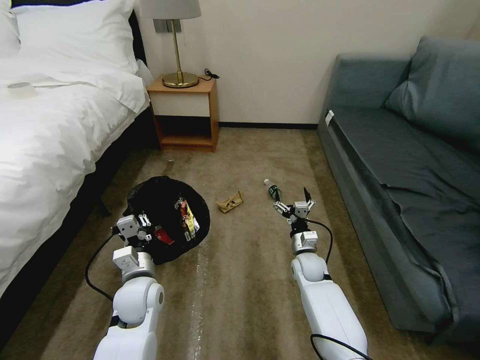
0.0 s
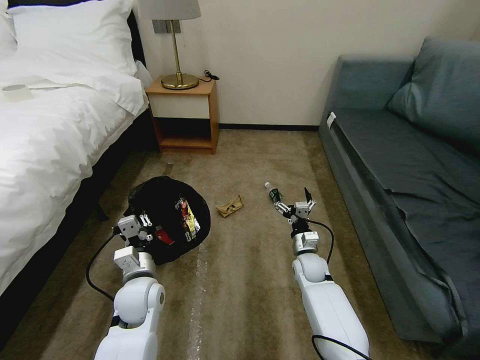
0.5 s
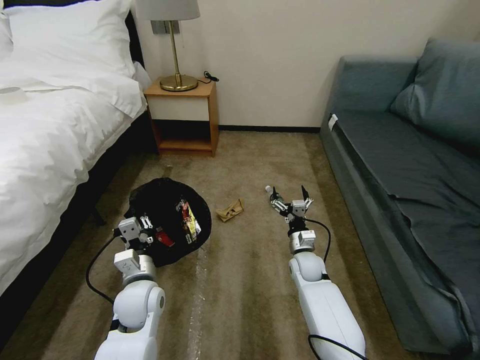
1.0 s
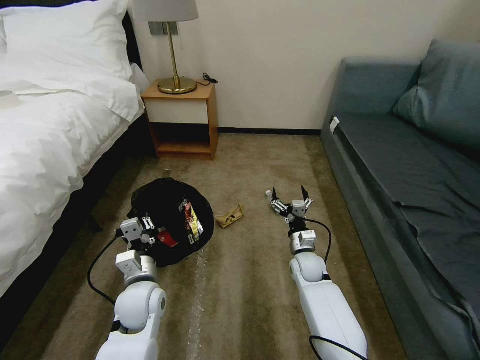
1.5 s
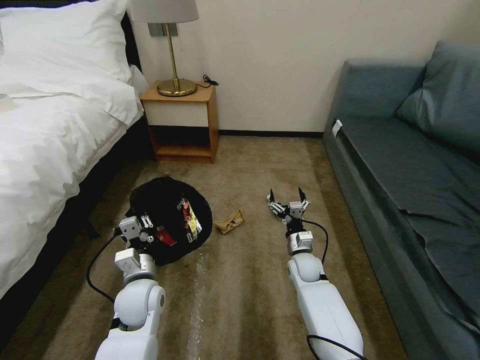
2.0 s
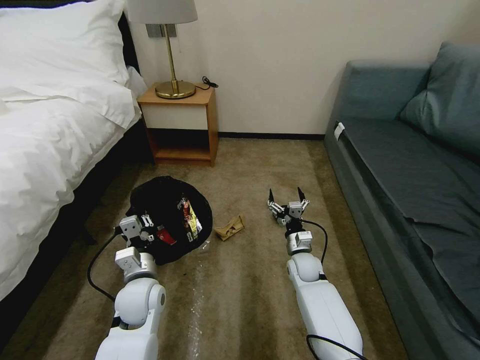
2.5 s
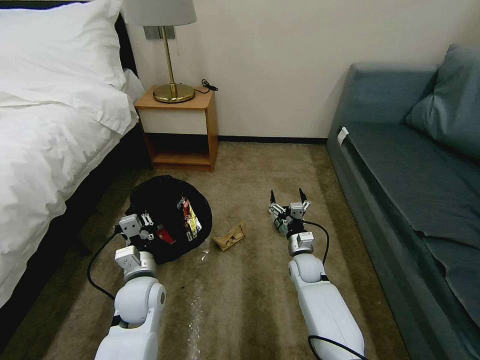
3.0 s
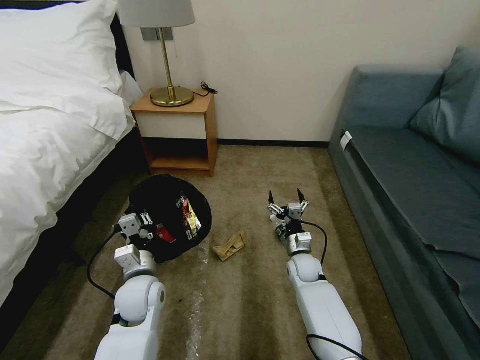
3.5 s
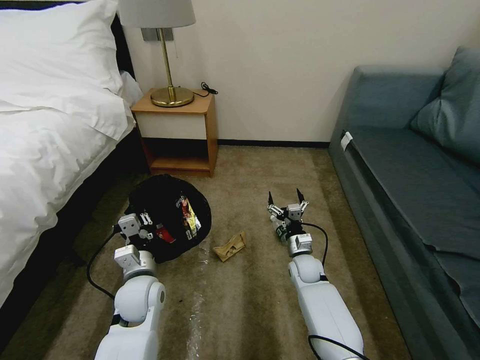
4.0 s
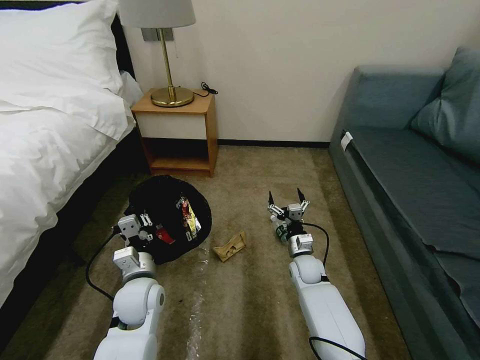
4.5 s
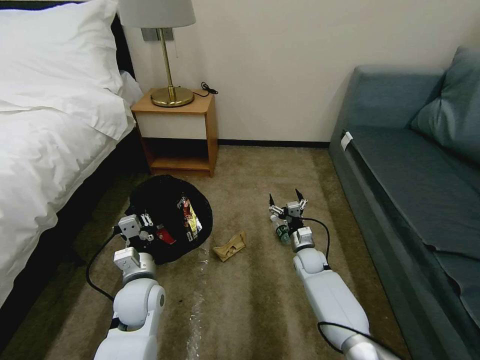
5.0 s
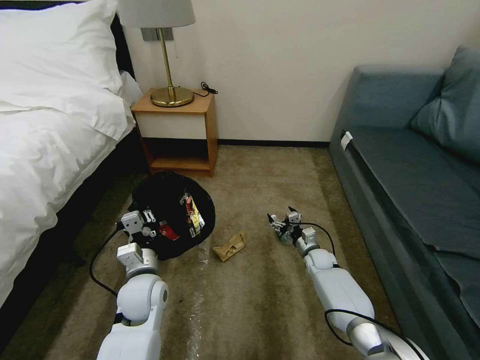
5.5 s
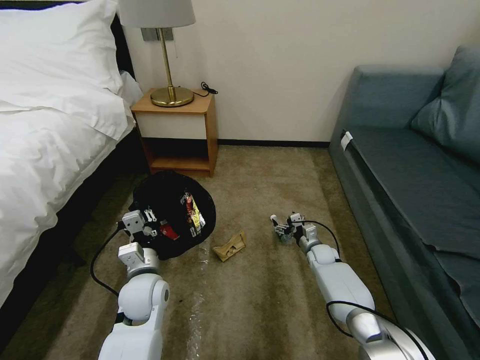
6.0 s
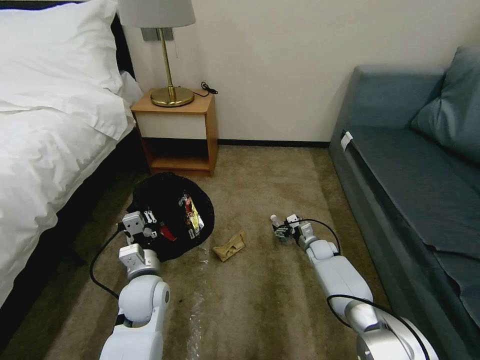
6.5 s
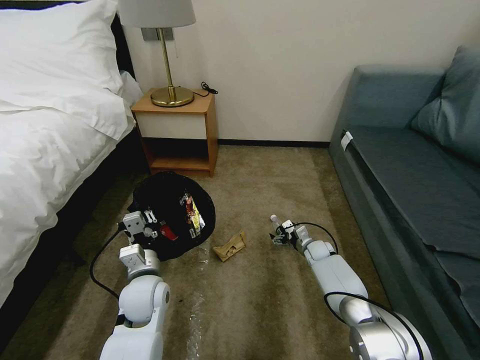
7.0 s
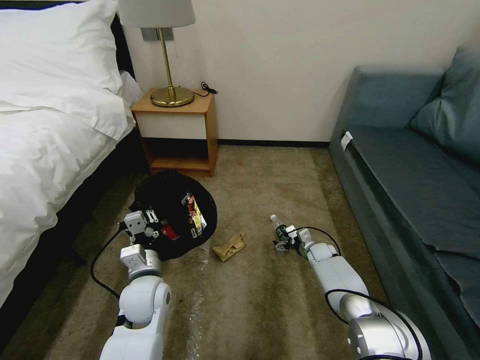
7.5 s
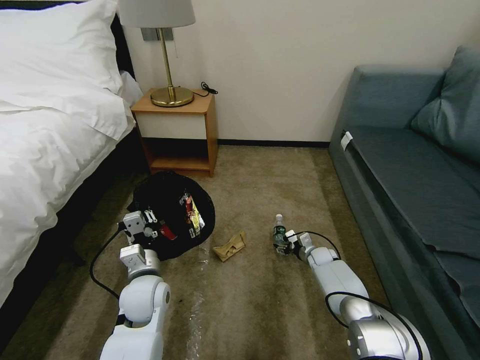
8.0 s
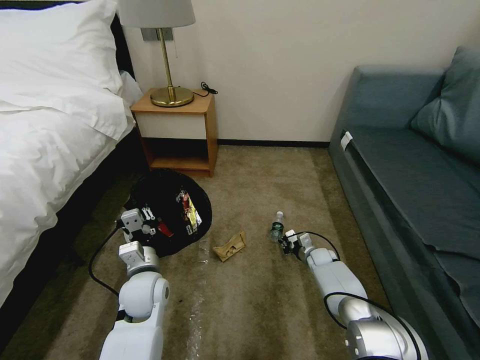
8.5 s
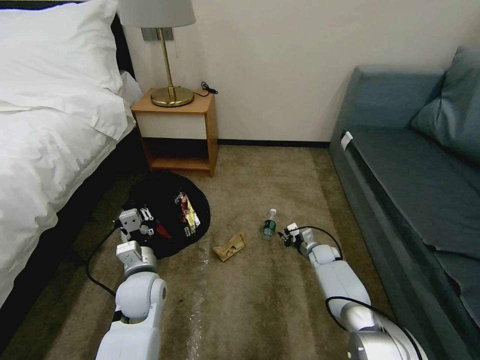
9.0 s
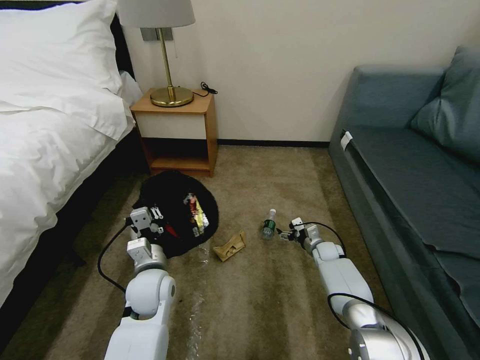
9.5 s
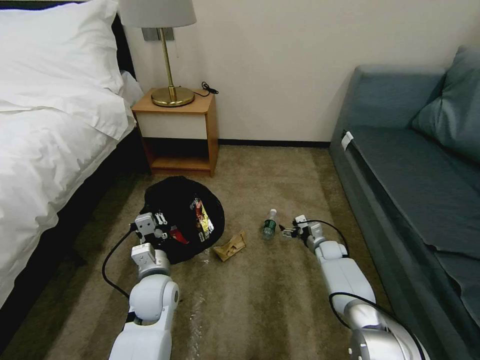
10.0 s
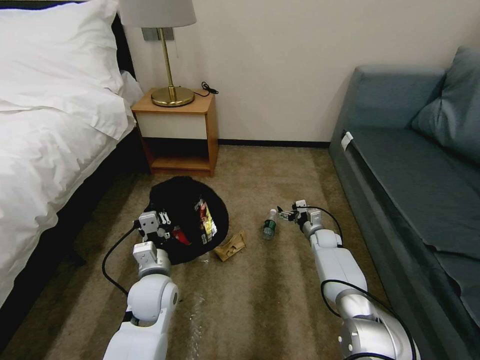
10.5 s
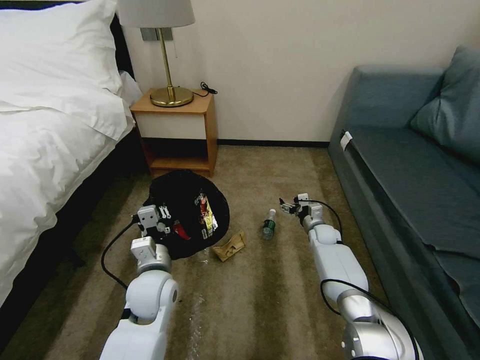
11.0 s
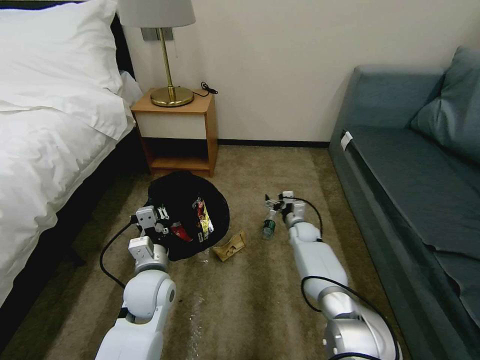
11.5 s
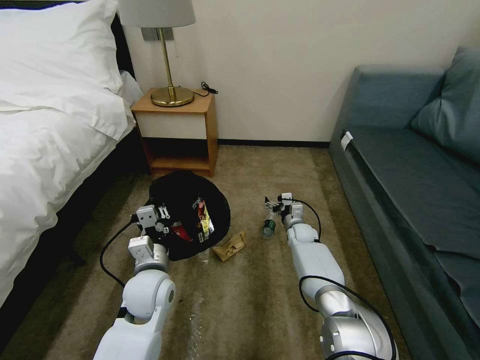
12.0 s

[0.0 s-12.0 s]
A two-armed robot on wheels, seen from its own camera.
Task of the whole recording: Pick up the trash bin, then pick up the garbage on the floor and place it into the trash bin.
0.0 to 2.0 s: The grippers stay close to where they were, moving slightly.
2.0 to 4.0 s: Both grippers stay about where they are.
4.0 to 6.0 s: The right gripper moves to the right and forward, some 10 cm.
8.0 to 10.0 s: The right gripper closes and opens again.
10.0 to 12.0 s: The right gripper goes about 10 cm to the left.

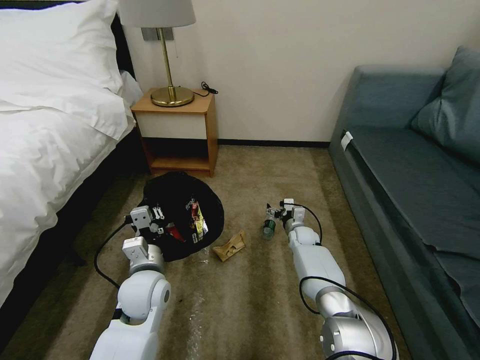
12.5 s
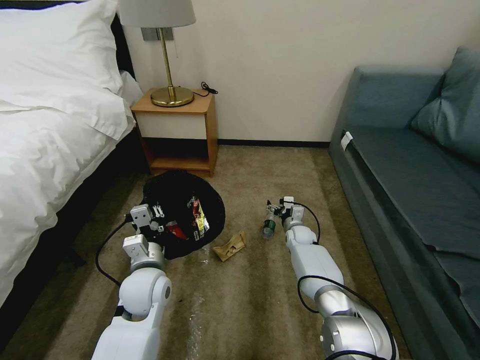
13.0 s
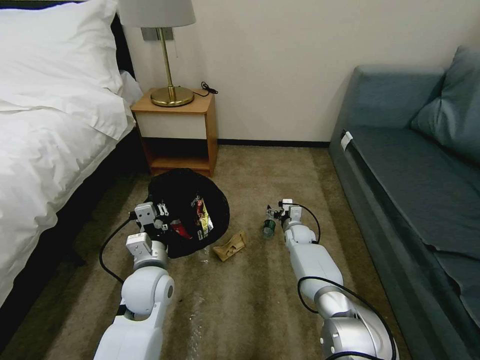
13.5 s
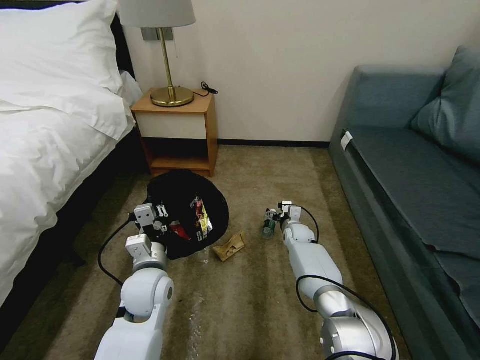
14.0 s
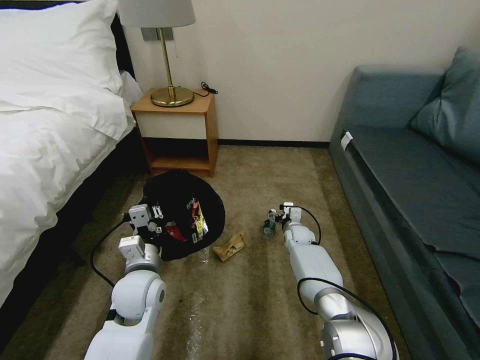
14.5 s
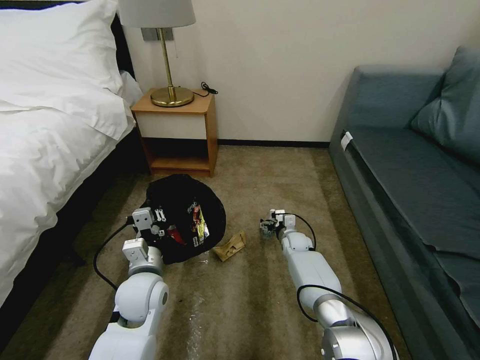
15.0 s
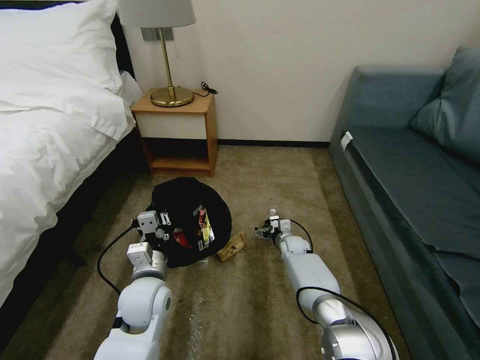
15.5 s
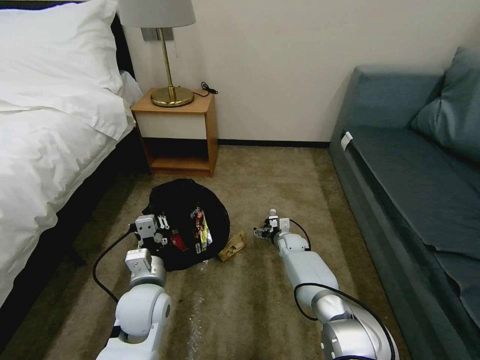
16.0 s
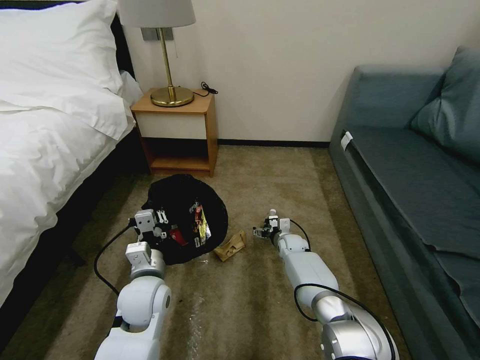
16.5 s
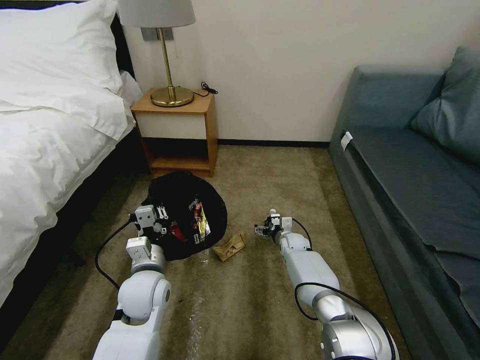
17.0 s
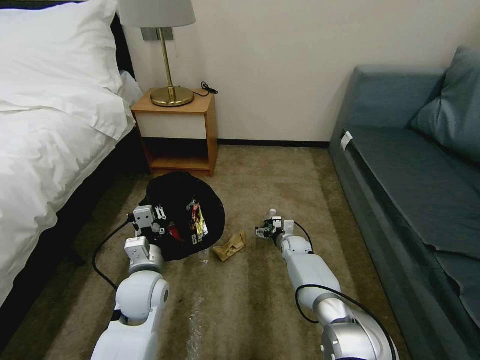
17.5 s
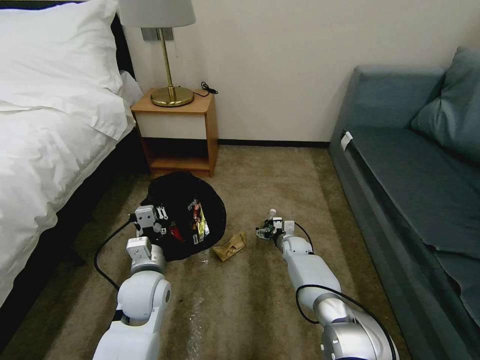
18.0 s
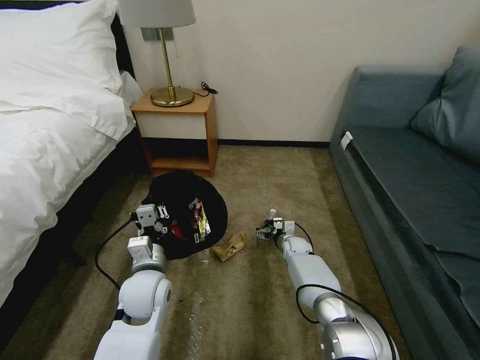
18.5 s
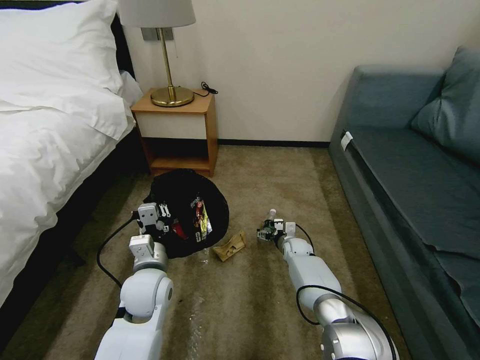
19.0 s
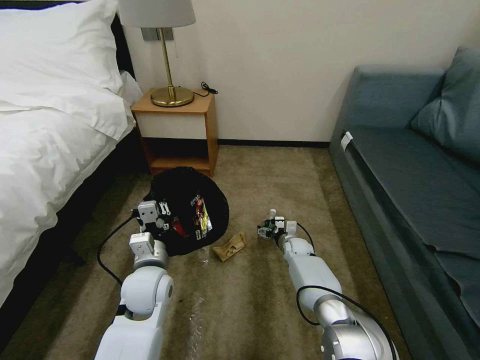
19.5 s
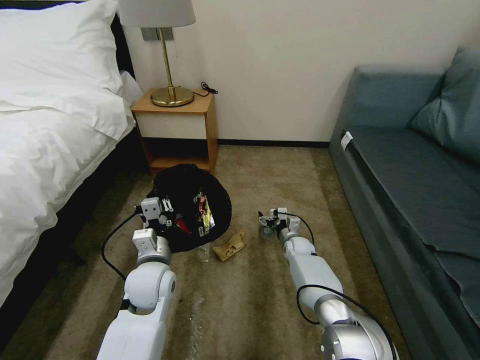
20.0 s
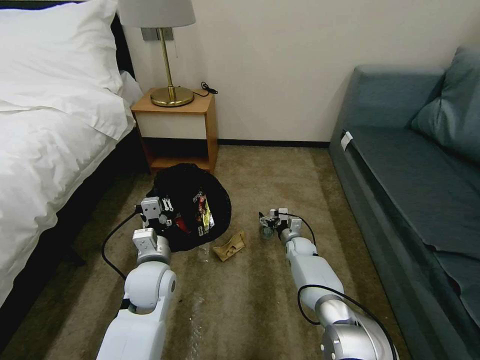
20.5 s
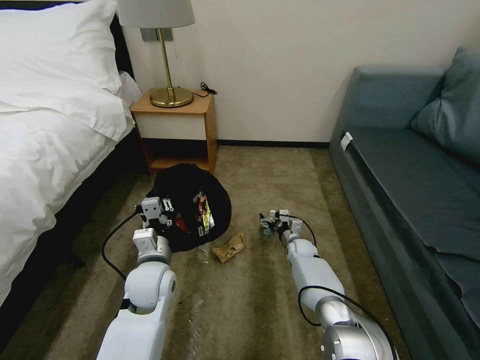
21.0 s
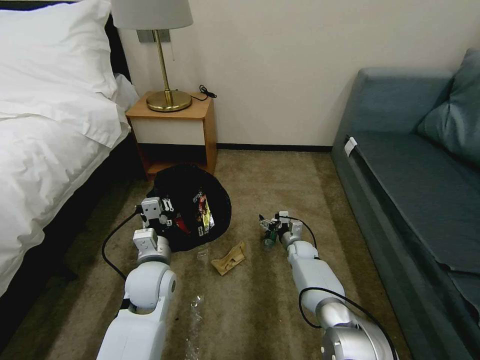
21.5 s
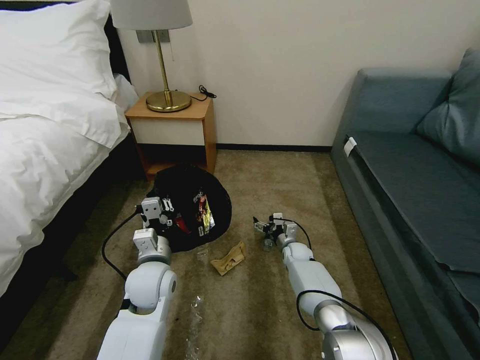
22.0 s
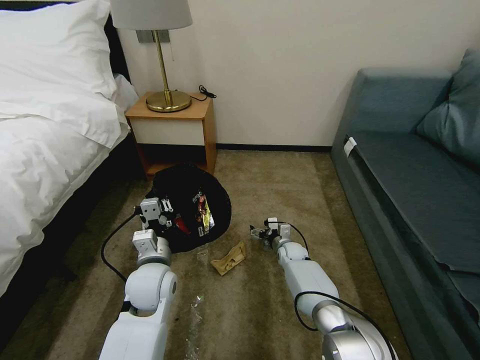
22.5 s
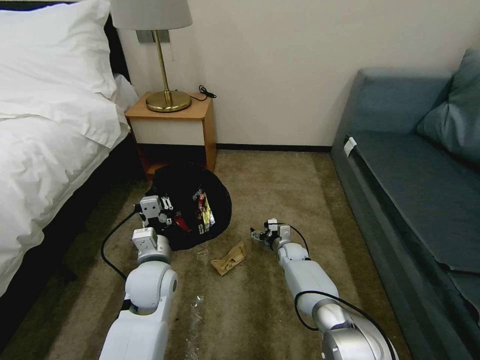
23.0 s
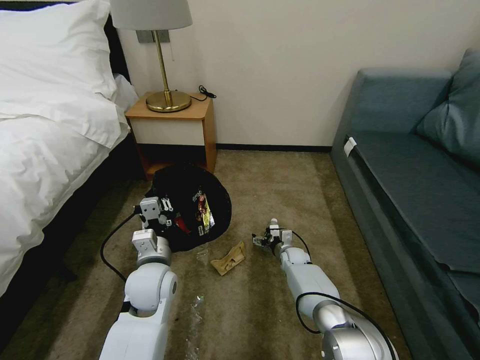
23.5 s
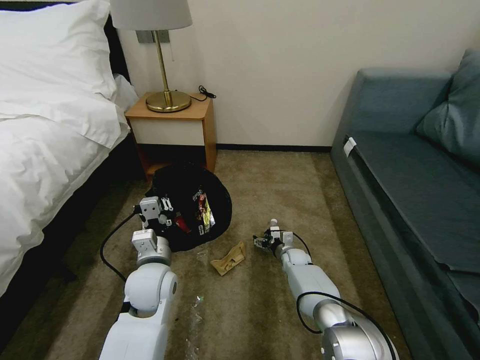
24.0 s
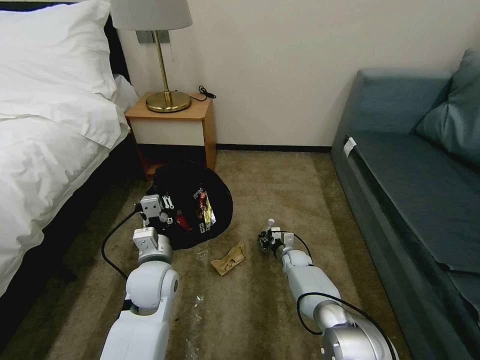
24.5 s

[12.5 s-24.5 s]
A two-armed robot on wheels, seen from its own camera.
Task of the whole recording: Pick up the trash bin, then pick up the garbage on the floor and place it into the trash bin.
12.5 to 20.5 s: The grippers stay close to where they were, moving slightly.
20.5 to 22.5 s: The grippers stay close to where they were, moving slightly.
22.5 to 24.5 s: The right gripper closes up.

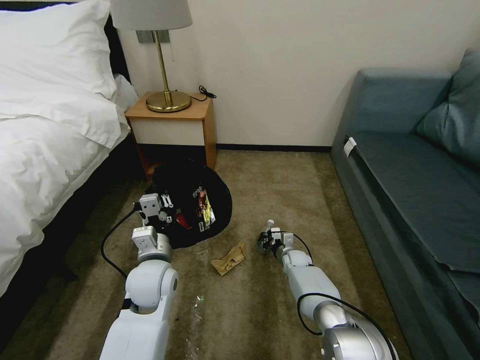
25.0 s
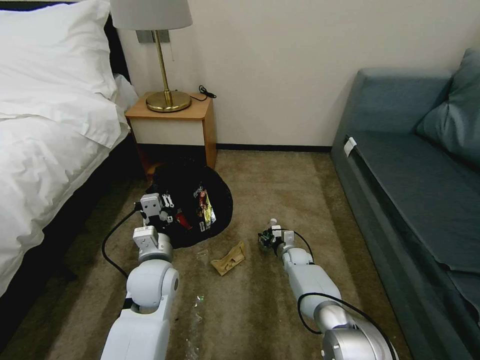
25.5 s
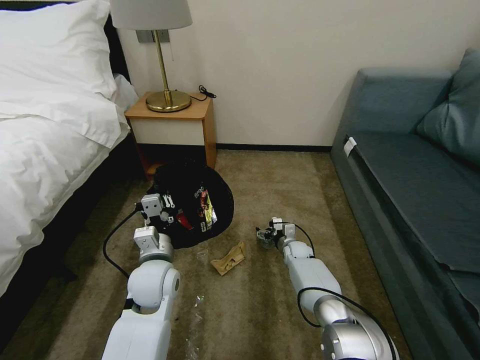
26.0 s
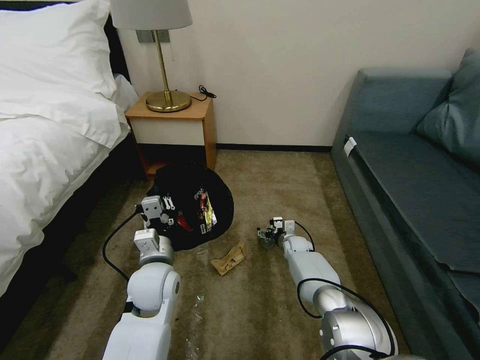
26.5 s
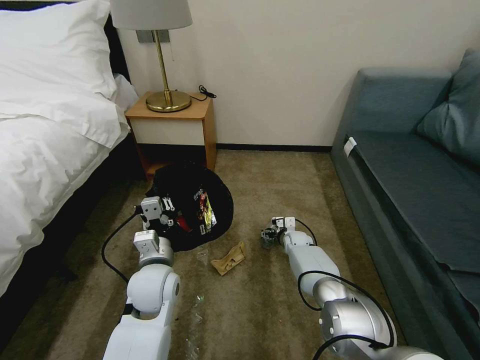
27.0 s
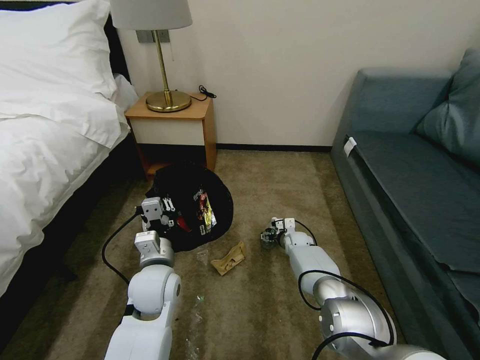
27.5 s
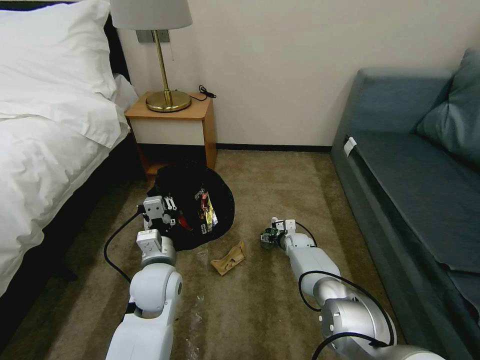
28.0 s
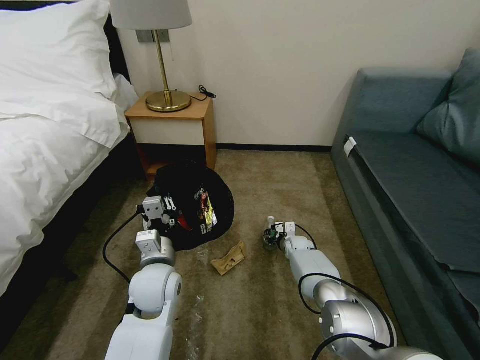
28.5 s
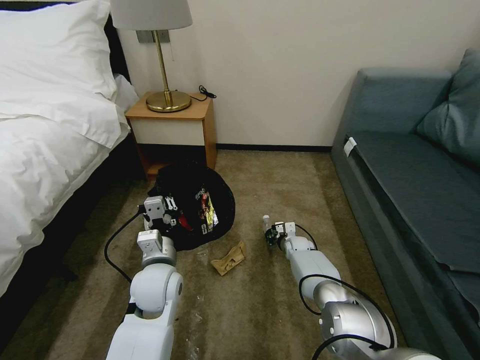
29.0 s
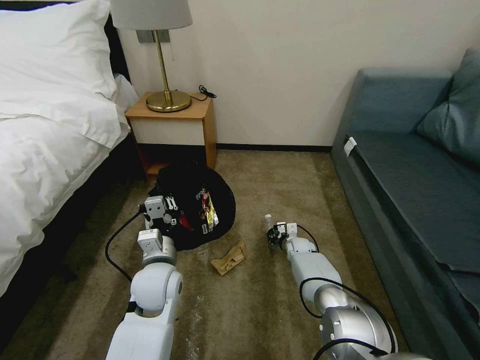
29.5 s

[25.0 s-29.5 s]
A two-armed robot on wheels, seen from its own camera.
Task of the whole recording: Pick up the trash bin, then pick up the garbage on the floor and place it into the trash bin.
25.0 to 27.0 s: The right gripper goes some 5 cm forward, and opens its fingers.
27.0 to 29.5 s: The right gripper closes up.
